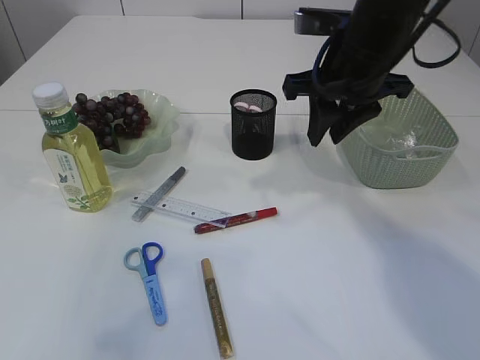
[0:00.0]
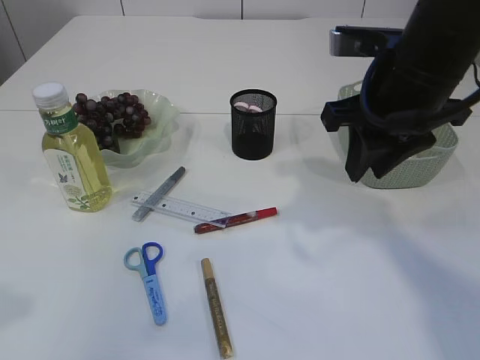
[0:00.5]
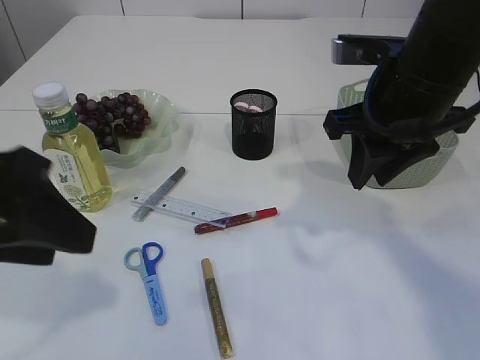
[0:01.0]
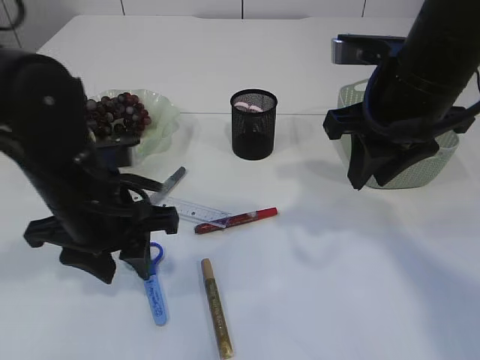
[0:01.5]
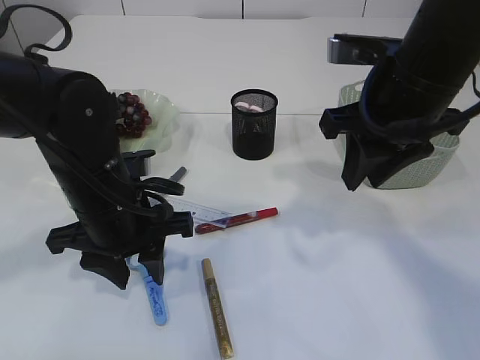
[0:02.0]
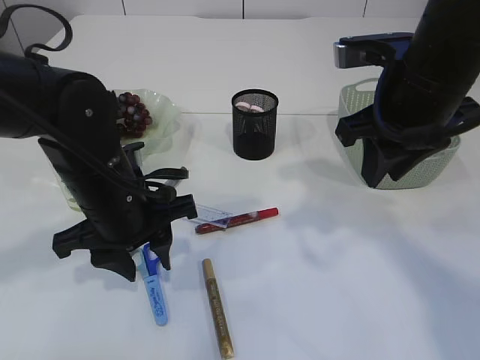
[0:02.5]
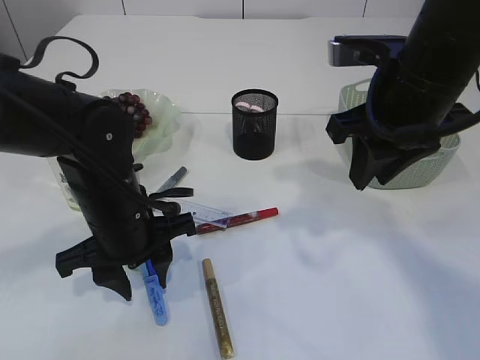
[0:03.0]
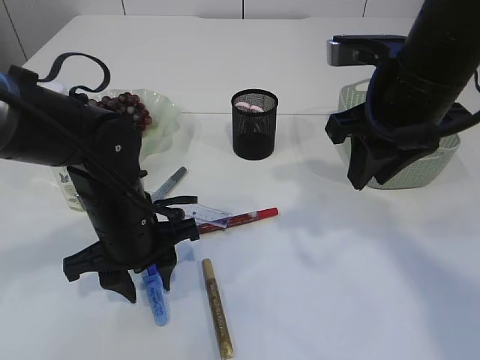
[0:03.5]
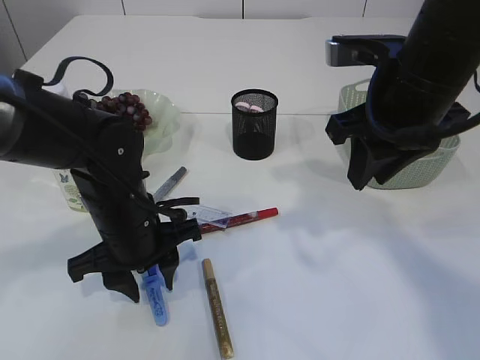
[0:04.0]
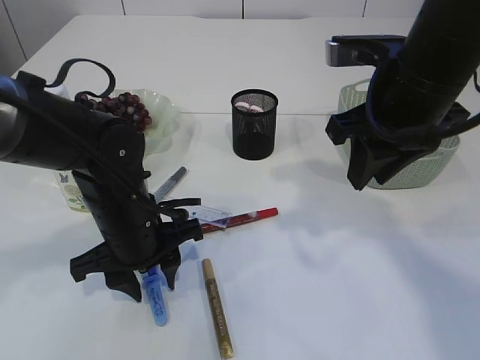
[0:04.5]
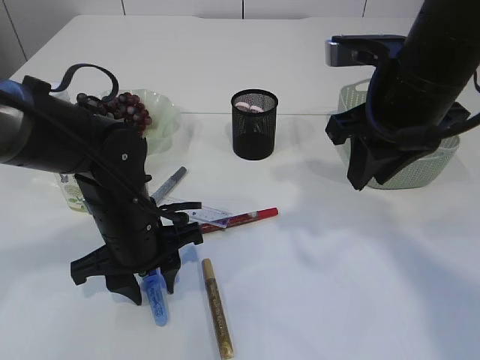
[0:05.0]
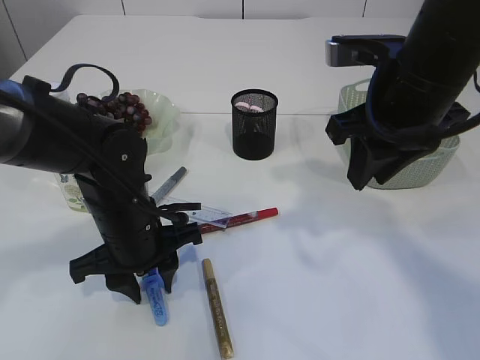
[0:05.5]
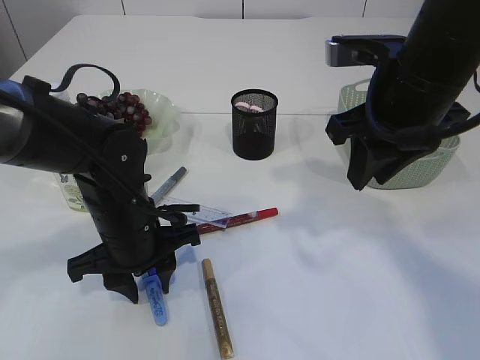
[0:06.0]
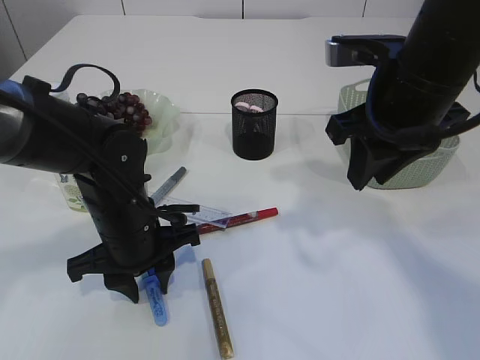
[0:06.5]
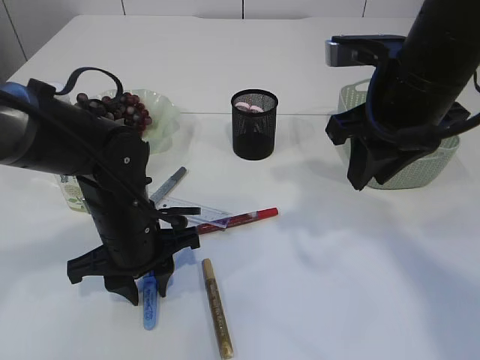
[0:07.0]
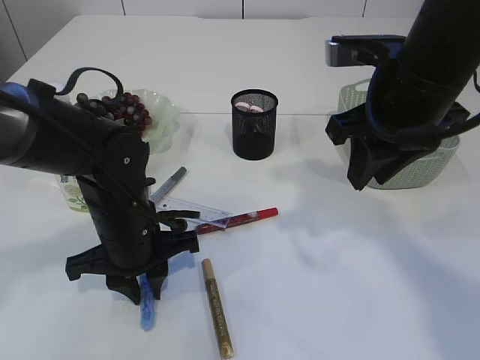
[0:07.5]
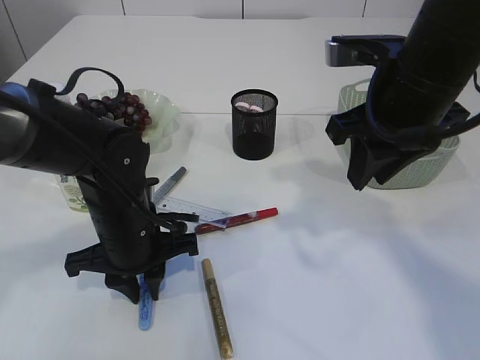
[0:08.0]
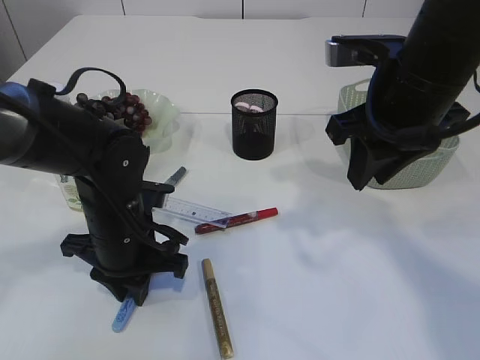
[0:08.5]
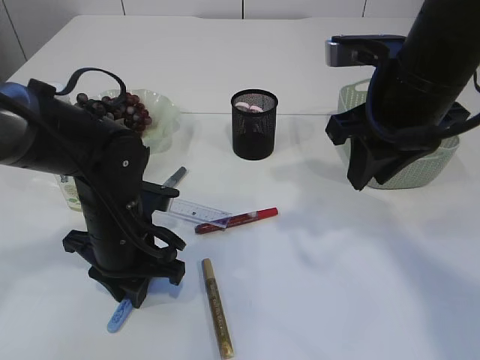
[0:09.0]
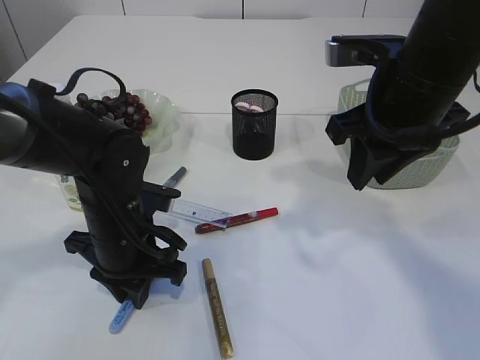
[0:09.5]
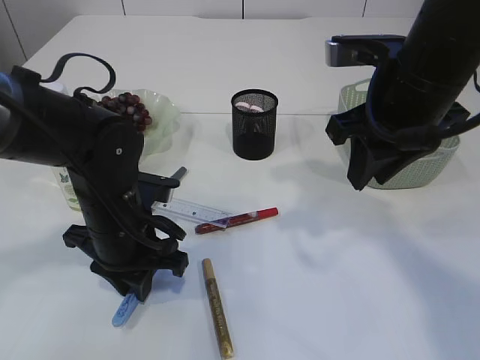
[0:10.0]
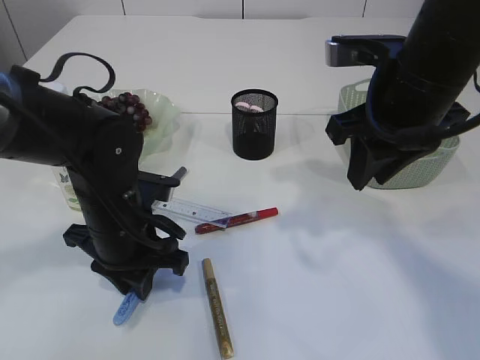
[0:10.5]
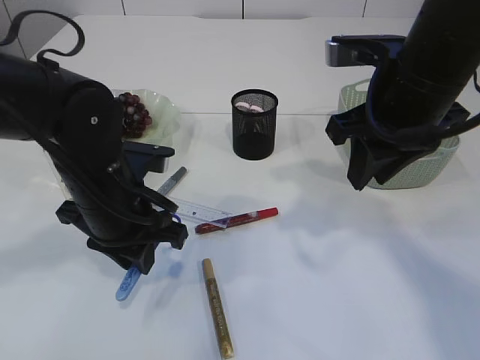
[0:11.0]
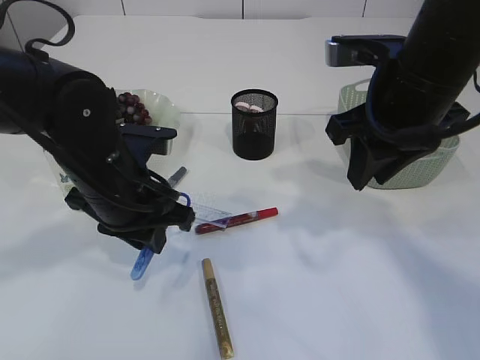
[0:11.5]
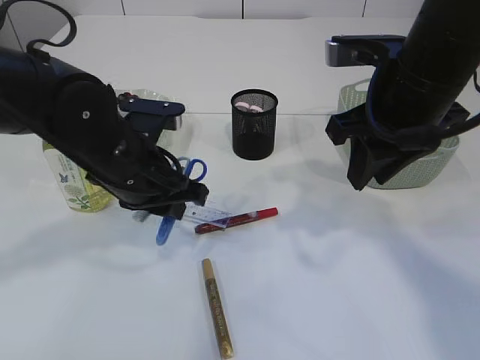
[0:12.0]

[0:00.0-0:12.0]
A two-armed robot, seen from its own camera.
Step, 0.0 to 11.0 s: pick up the blue scissors.
0.0 to 2.0 s: The left gripper moves to the right, downward and forward, approximately 25 cm. The right gripper moves backward, roughly 5 cm.
2.0 to 4.0 s: The grippers stay close to where they were, moving slightly.
4.0 to 6.0 s: Both grippers stay about where they are.
6.0 to 8.0 s: The grippers stay close to where they were, moving slightly.
10.0 to 12.0 s: The left gripper shifts approximately 5 cm upward.

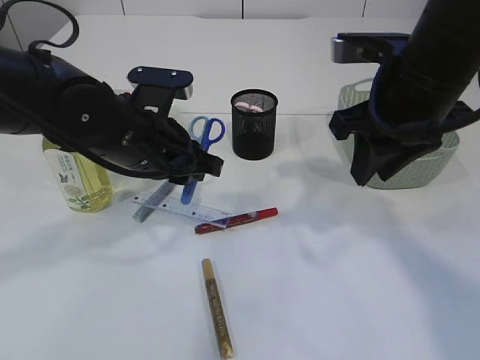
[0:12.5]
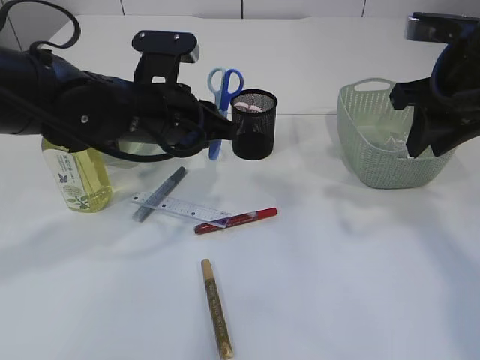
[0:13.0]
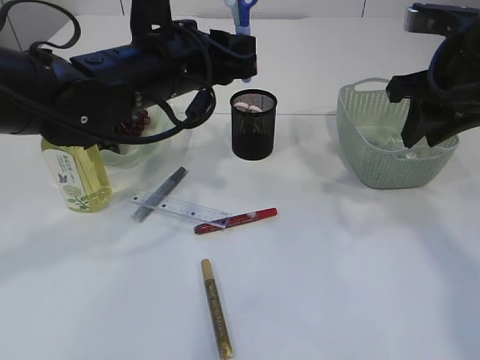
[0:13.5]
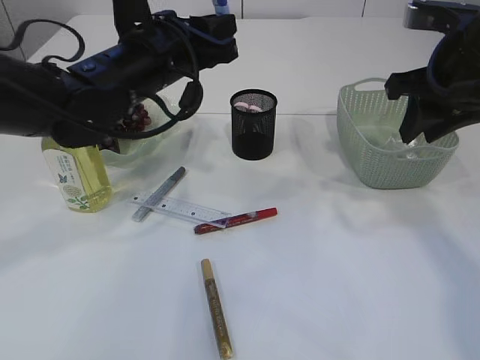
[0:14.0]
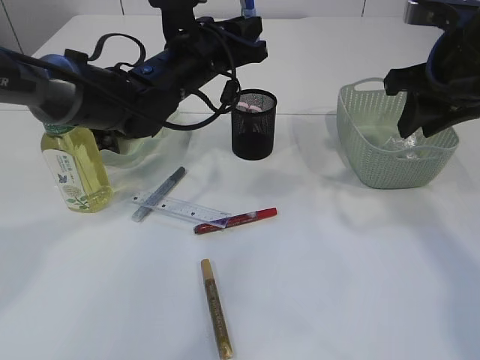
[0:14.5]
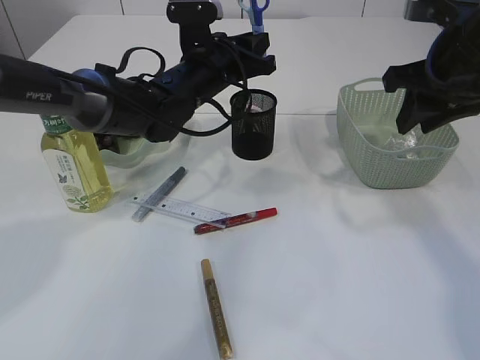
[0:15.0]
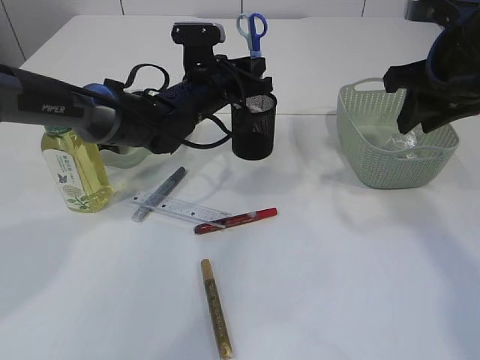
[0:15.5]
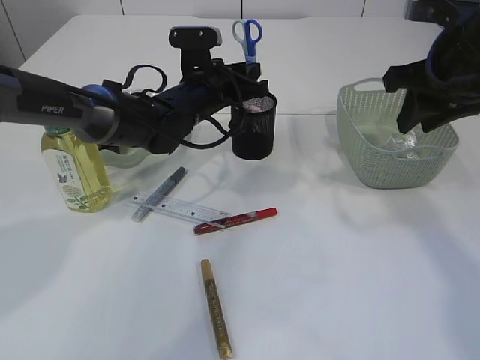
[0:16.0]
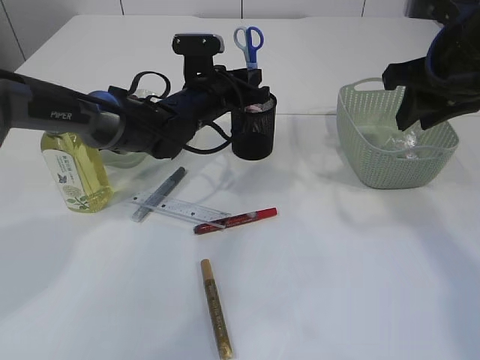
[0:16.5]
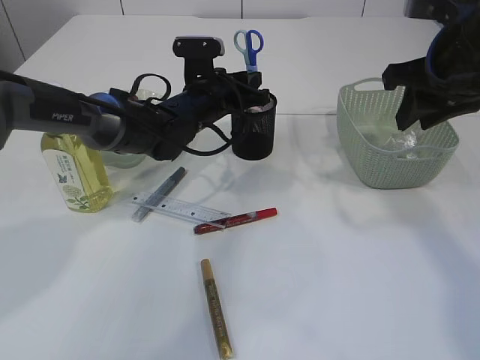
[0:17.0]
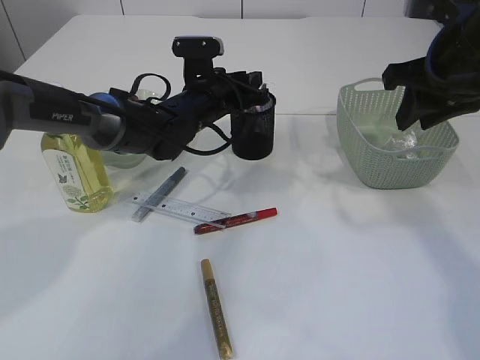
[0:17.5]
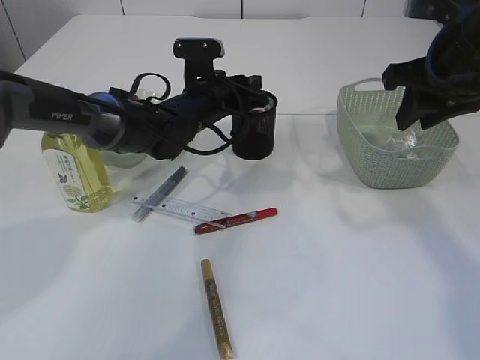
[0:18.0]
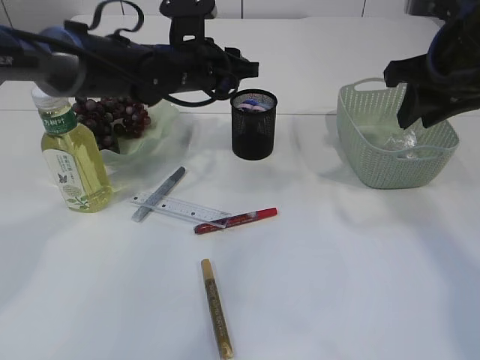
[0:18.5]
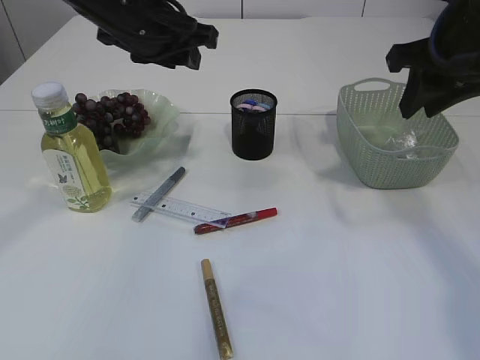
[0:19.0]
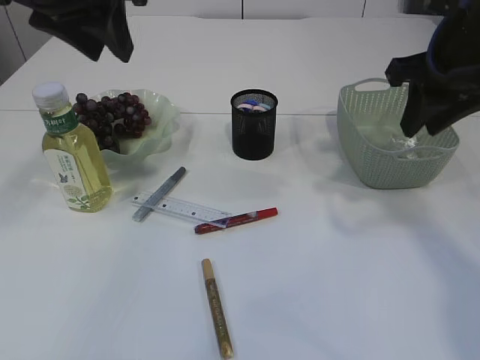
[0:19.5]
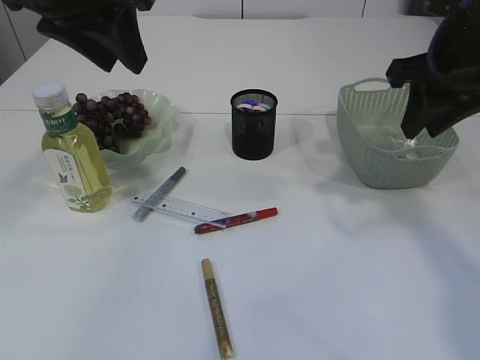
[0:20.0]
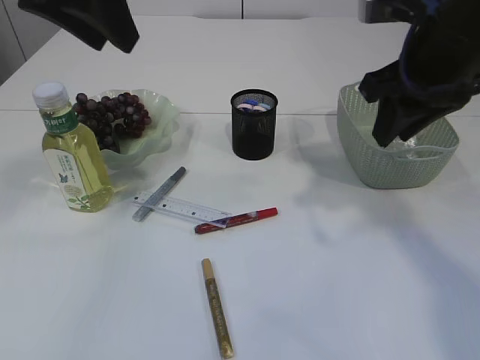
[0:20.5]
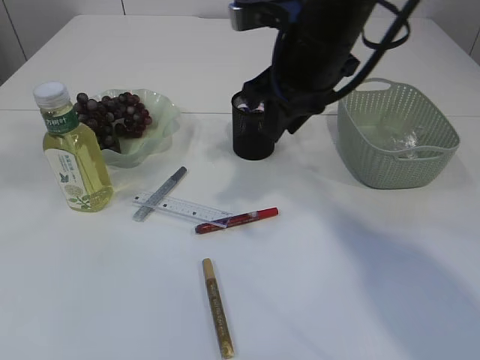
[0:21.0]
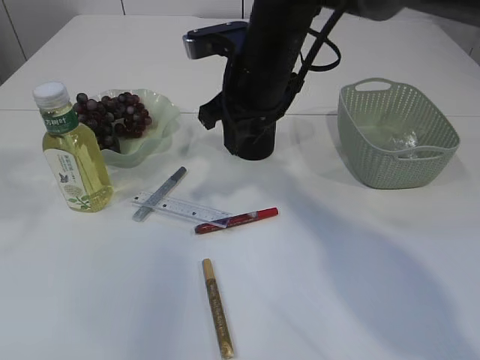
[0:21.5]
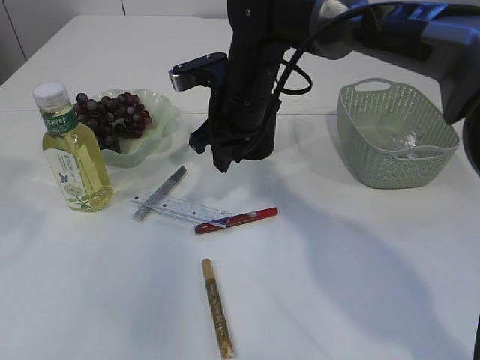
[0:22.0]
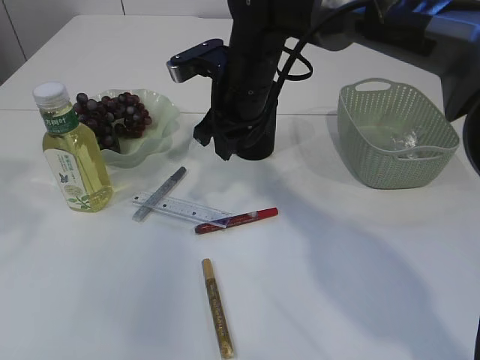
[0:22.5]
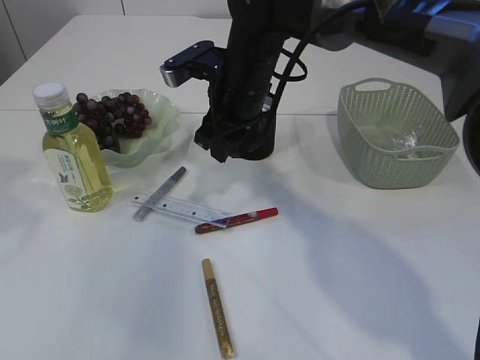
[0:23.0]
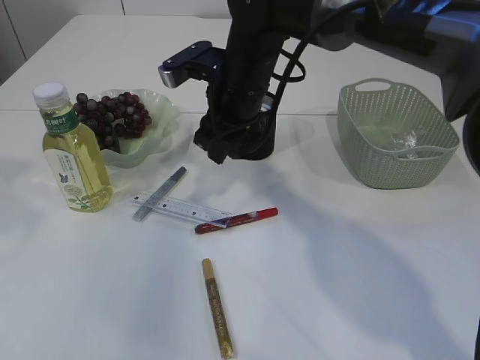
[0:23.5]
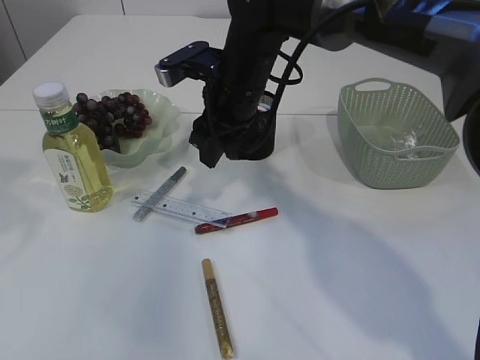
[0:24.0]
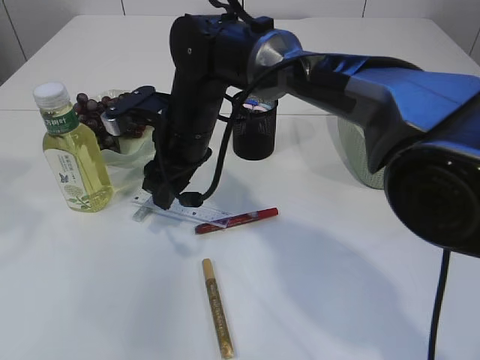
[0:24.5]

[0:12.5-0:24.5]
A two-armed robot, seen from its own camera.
Step, 12.5 to 18.0 s: Place the blue scissors into the pen holder.
12.5 to 14.5 s: The right gripper heads to the right, covering approximately 5 cm, while the left gripper shifts about 10 cm forward.
14.5 to 16.5 s: The left gripper shifts about 5 cm downward.
16.5 to 18.5 s: The left gripper shifts about 5 cm upward.
18.5 to 20.5 s: The left gripper heads upward and backward, covering approximately 25 cm. The right gripper ends up approximately 5 cm from where it was.
20.5 to 22.5 s: The right gripper travels to the left, forward and downward by about 20 cm, while the left gripper shifts approximately 15 cm to the left.
22.5 to 24.5 s: The right gripper travels to the left by some 5 cm, and opens up.

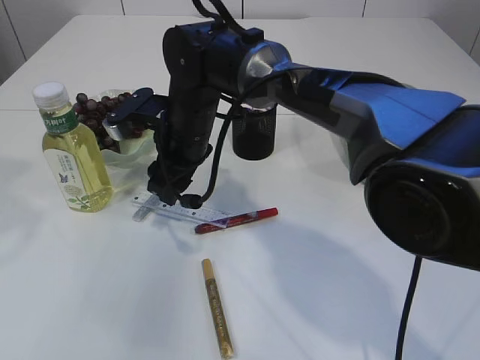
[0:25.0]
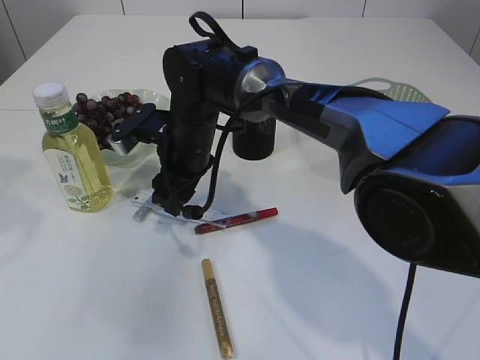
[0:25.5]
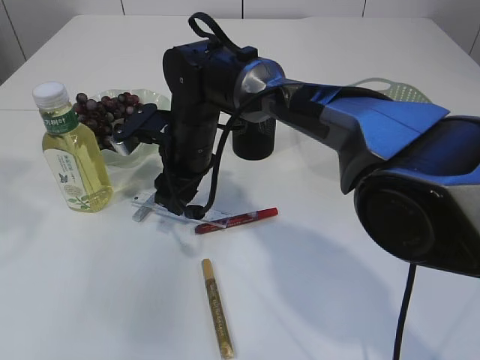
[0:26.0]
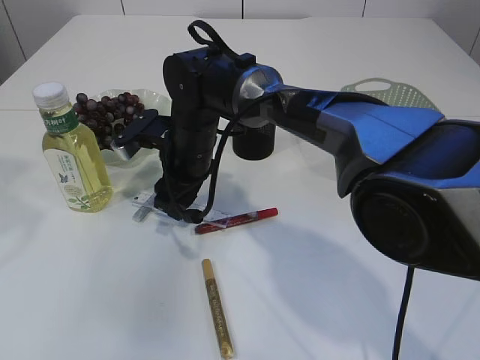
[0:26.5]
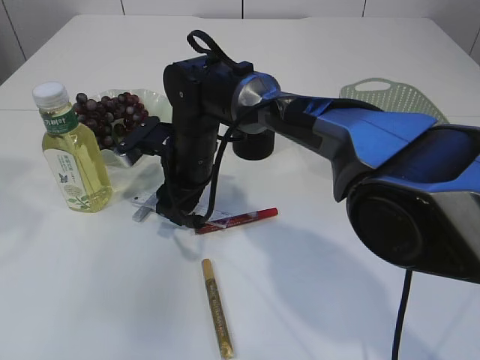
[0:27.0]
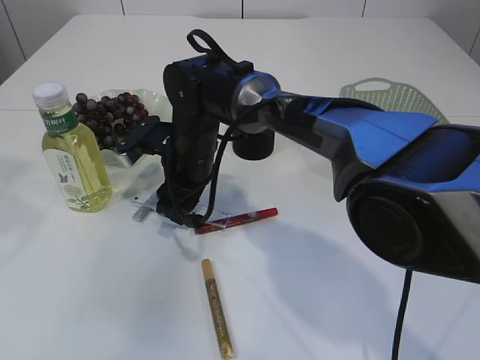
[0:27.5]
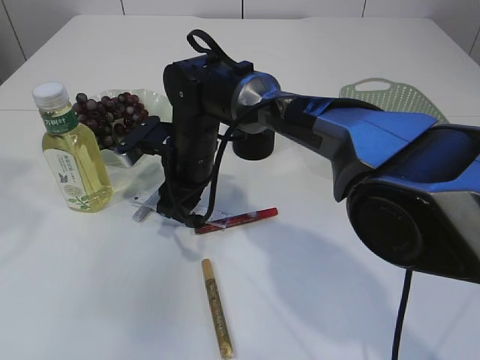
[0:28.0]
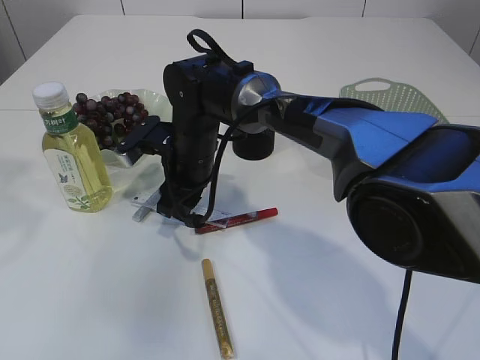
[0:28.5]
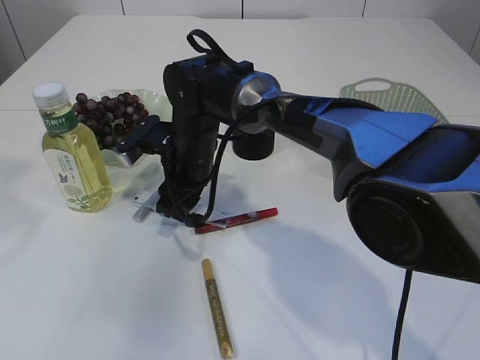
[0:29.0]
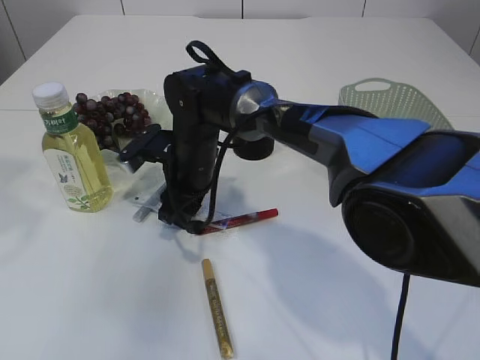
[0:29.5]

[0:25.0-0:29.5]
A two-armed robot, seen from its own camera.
25.0 to 27.0 s: The grippers move only a little.
27.0 to 29.5 s: Both grippers stay put.
